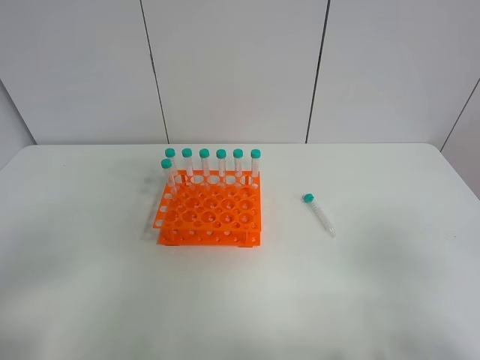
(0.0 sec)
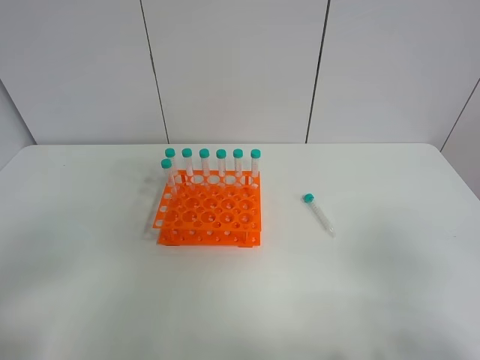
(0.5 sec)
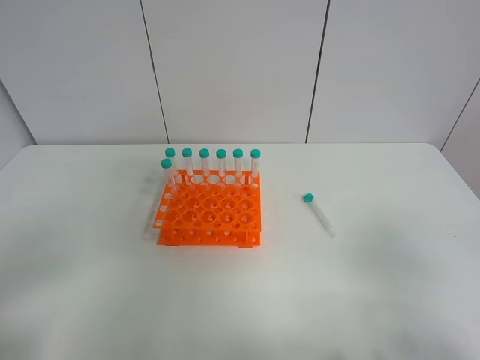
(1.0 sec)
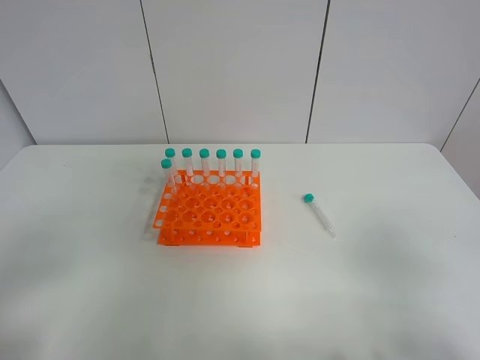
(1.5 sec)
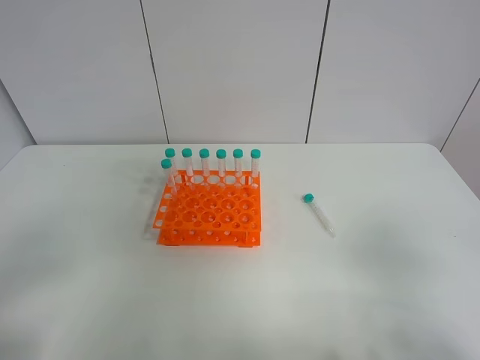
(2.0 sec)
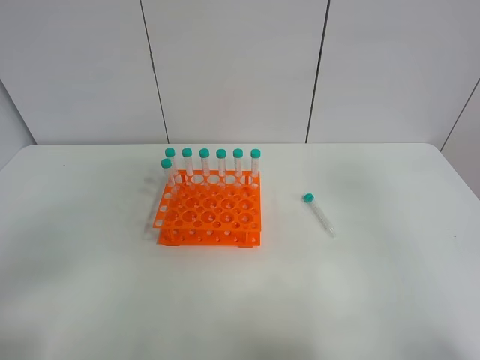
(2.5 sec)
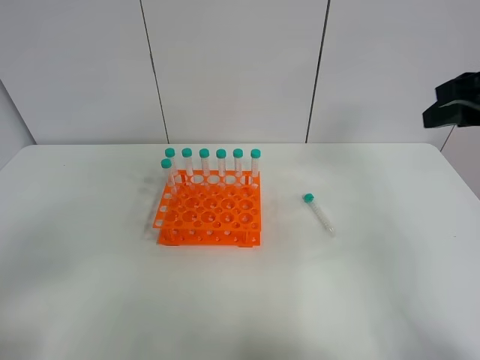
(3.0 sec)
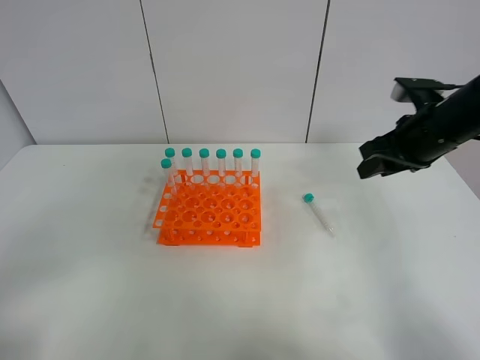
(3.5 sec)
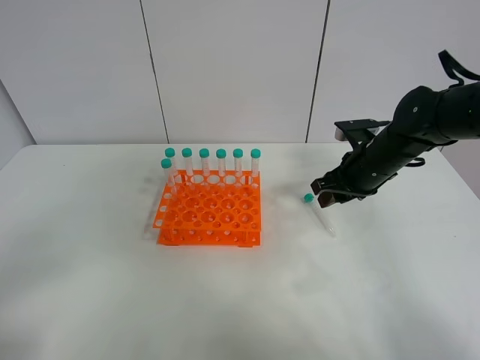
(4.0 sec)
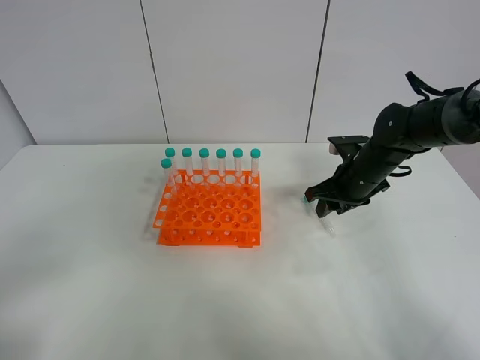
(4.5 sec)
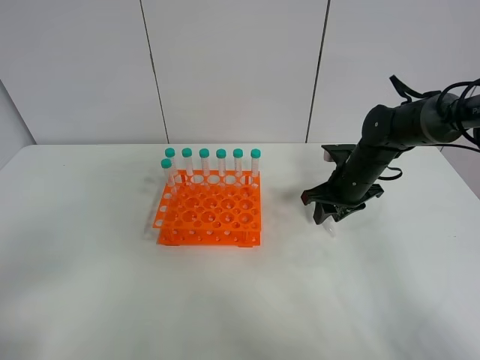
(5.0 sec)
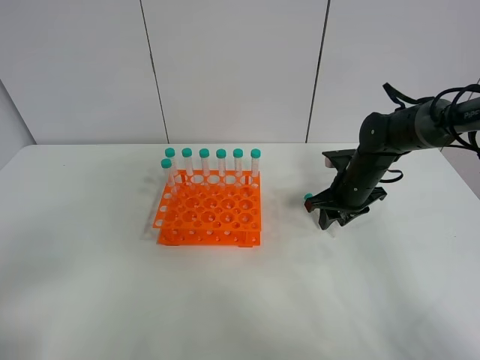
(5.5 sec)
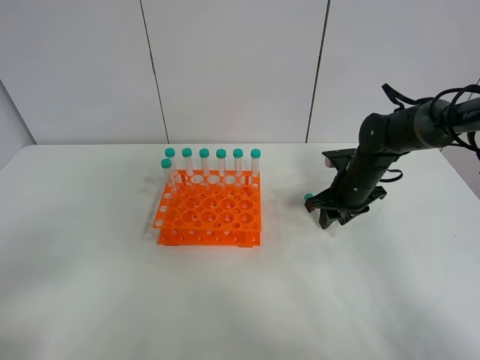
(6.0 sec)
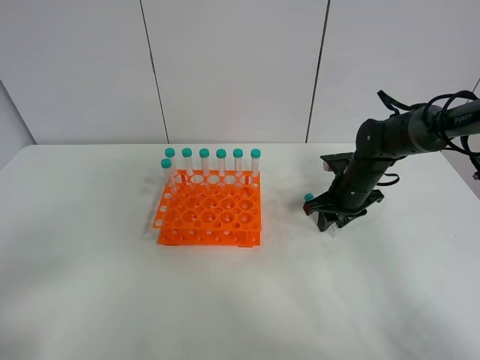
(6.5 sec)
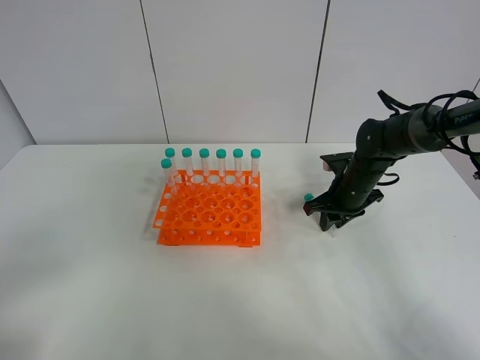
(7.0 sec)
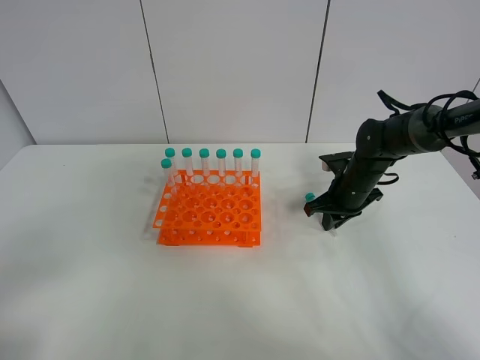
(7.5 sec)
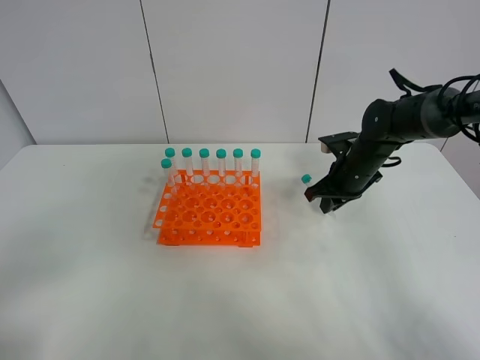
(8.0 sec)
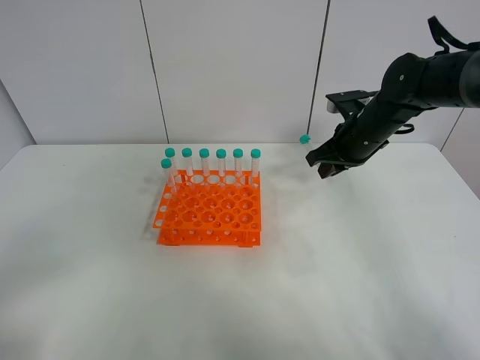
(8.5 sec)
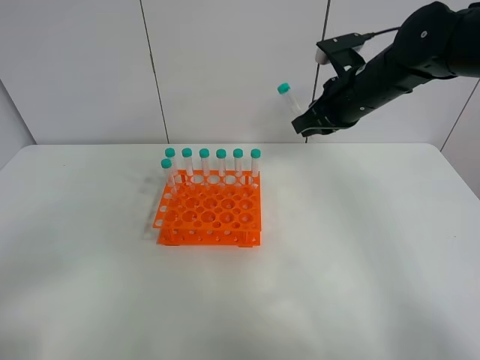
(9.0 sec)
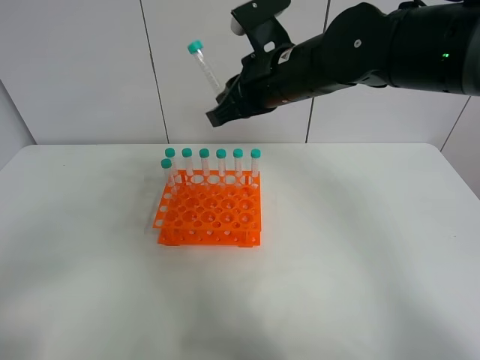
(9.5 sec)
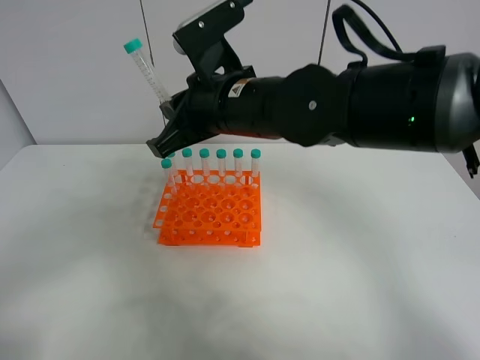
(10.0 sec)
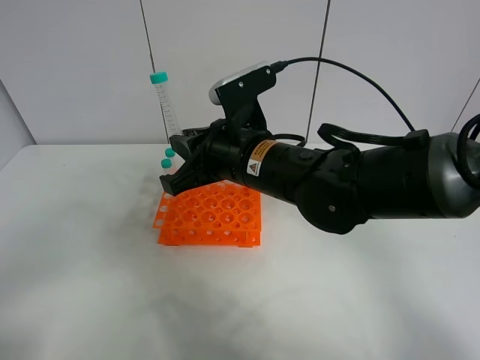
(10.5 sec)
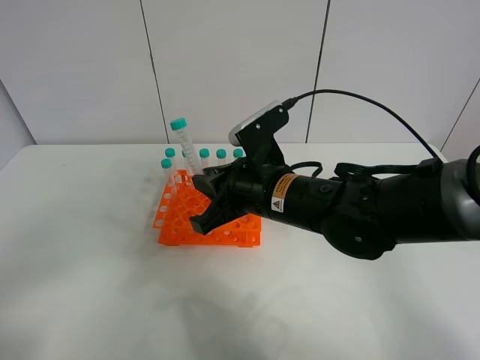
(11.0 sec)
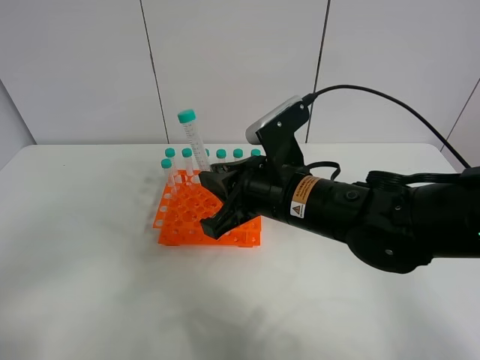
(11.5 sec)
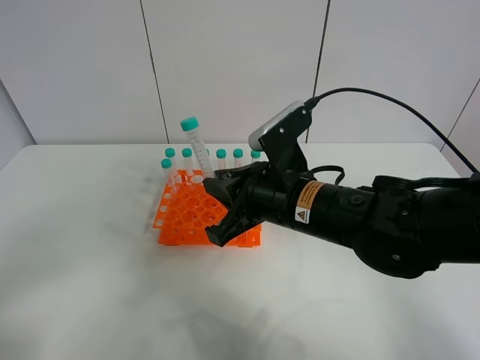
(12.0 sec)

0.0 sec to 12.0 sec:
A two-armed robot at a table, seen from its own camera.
Task of the whole recording: Put the test tube on the table back onto the test tube rack.
Step, 0.0 sec to 8.5 sec: Pick up the test tube with the right gripper.
0.0 sec to 2.0 sec: Both grippers stay about where they are.
2.0 sec to 4.0 sec: The right gripper moves forward, roughly 35 cm.
4.0 sec to 6.0 sec: The right gripper travels downward by some 5 cm.
6.0 sec to 8.0 sec: The right gripper closes.
8.0 sec to 10.0 sec: The right gripper is displaced to the left, upward and backward by about 25 cm.
10.0 sec to 12.0 sec: The right gripper travels downward, to the right and backward by some 10 cm.

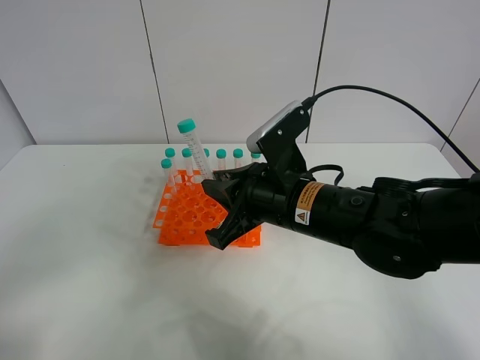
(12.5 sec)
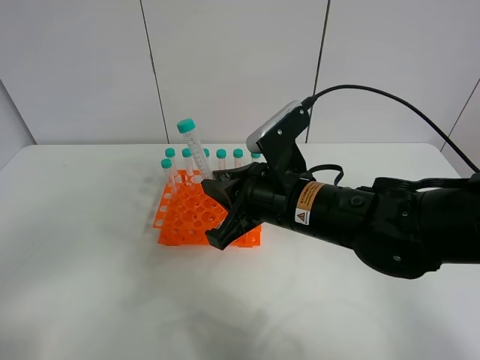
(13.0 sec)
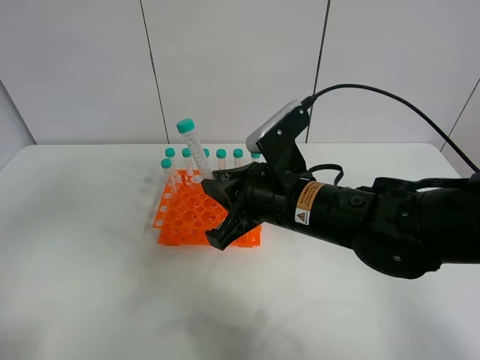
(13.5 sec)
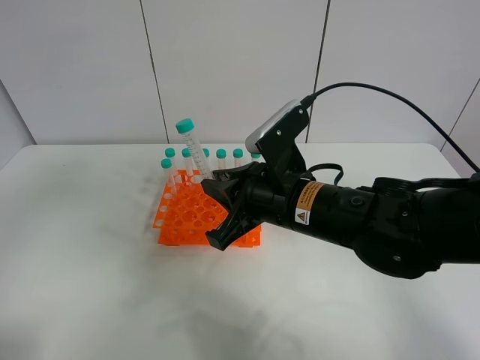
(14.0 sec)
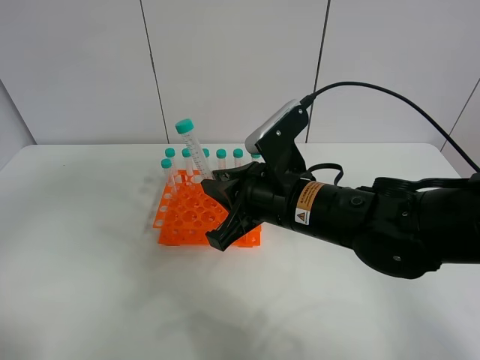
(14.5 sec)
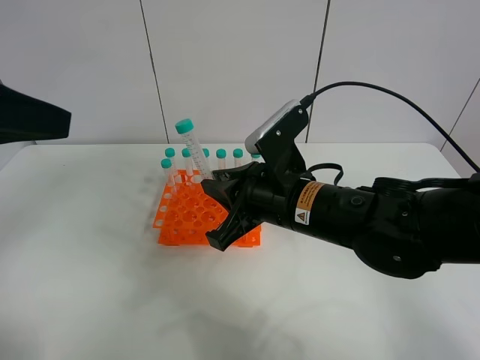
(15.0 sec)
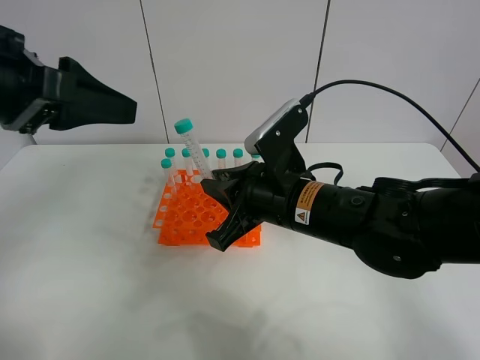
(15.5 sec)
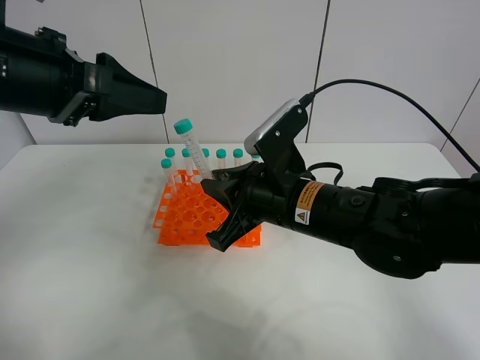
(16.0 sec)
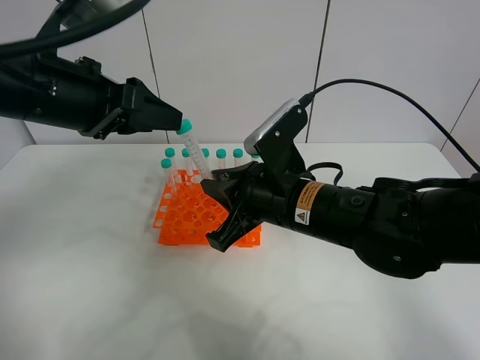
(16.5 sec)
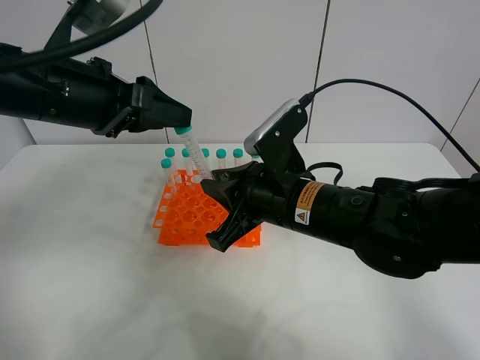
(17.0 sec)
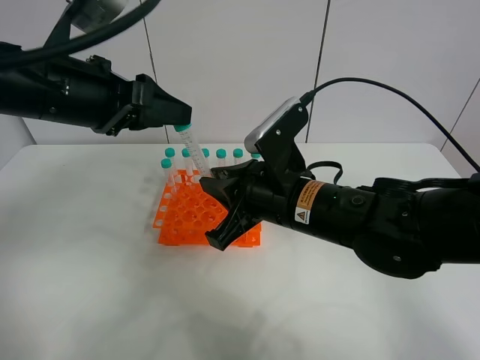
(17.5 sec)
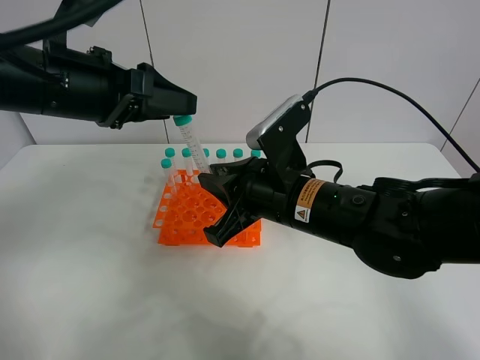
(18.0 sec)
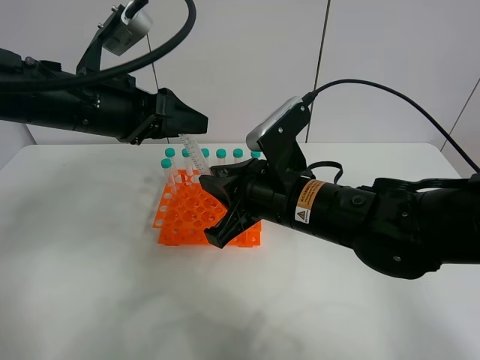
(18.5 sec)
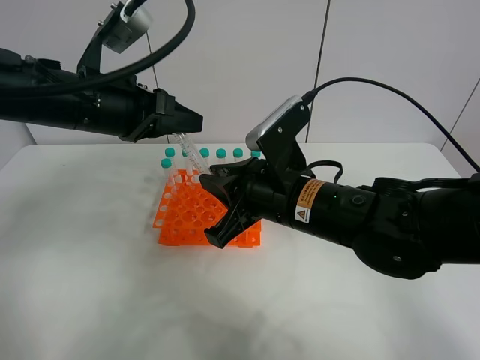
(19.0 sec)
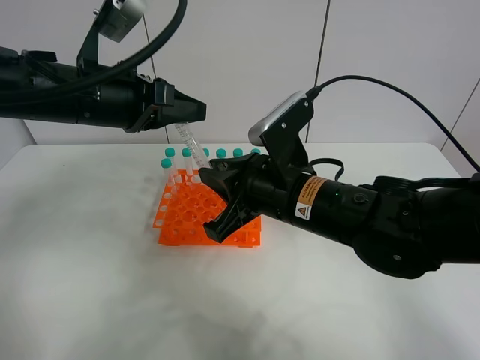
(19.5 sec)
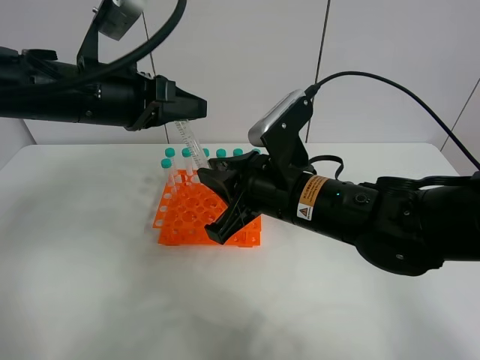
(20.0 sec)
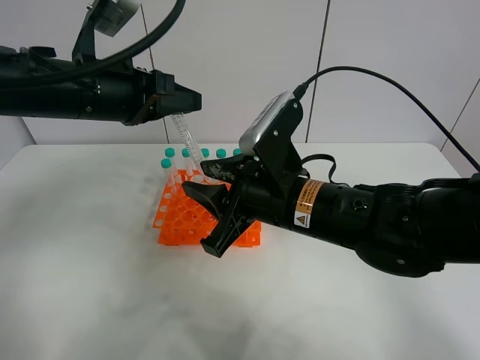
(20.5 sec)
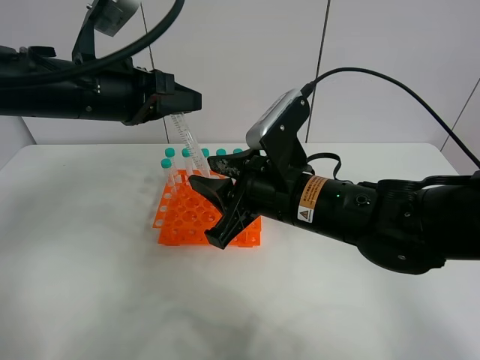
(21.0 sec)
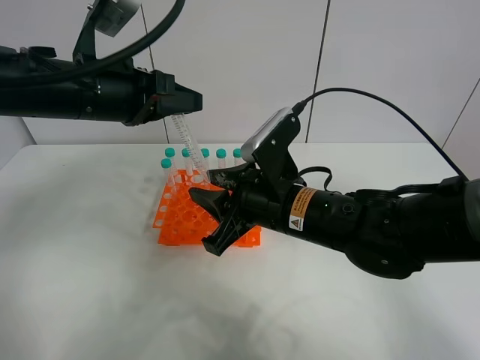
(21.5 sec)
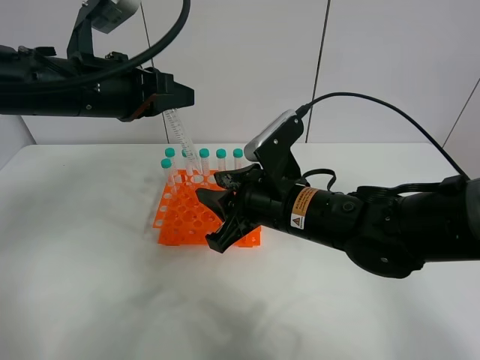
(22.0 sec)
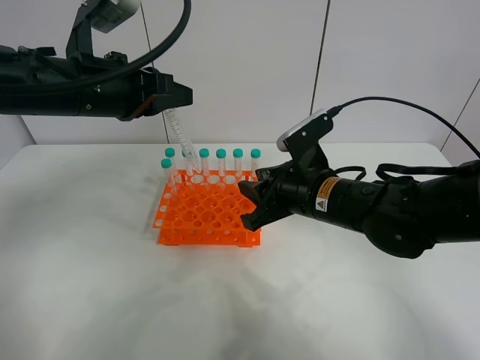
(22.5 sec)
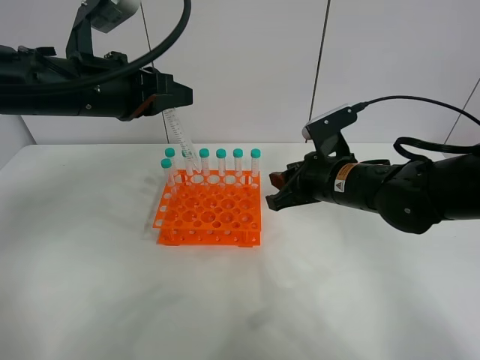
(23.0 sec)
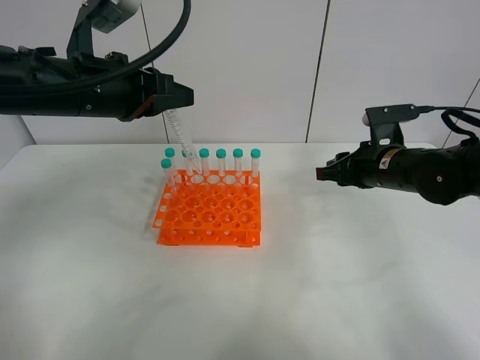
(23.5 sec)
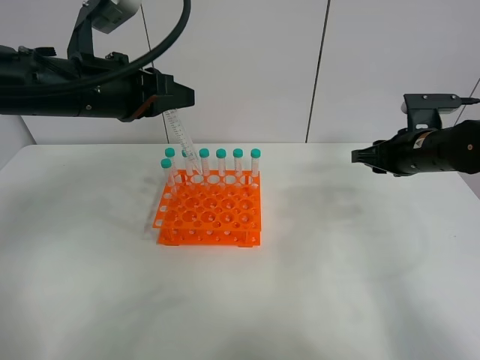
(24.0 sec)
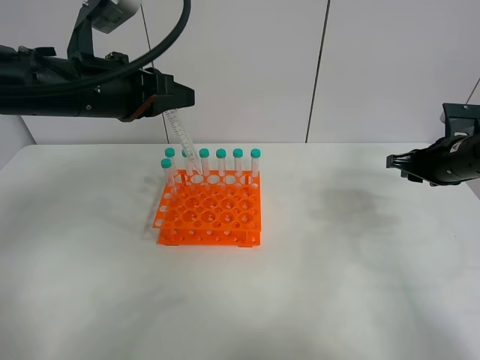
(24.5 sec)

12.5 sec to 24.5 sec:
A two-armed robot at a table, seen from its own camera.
Task of the whole recording: Put the test tube on the table back onto the test tube rack.
Step, 12.5 sec to 22.5 sec: Move the test tube from the right gripper to the left gripper.
12.5 sec to 14.5 sec: The left gripper goes approximately 15 cm upward and forward.
14.5 sec to 16.5 sec: The left gripper heads forward, downward and to the right, covering some 20 cm.
16.5 sec to 18.5 sec: The grippers move only a little.
18.5 sec to 20.5 sec: The right gripper opens up. Meanwhile the left gripper closes its fingers.
20.5 sec to 22.5 sec: The right gripper ends up approximately 5 cm from where it was.
22.5 sec to 24.5 sec: The right gripper moves to the right, about 20 cm.

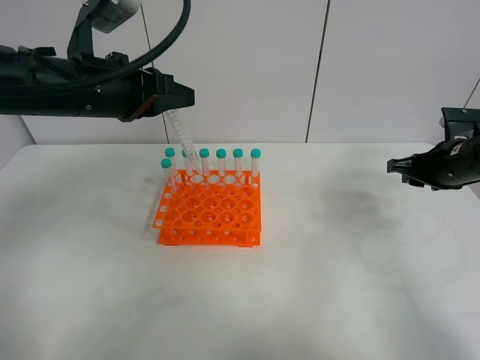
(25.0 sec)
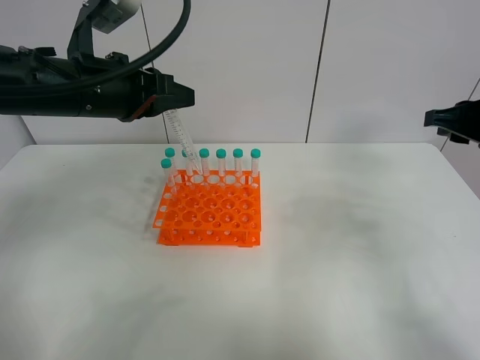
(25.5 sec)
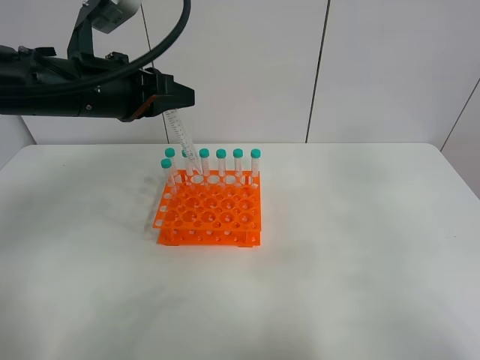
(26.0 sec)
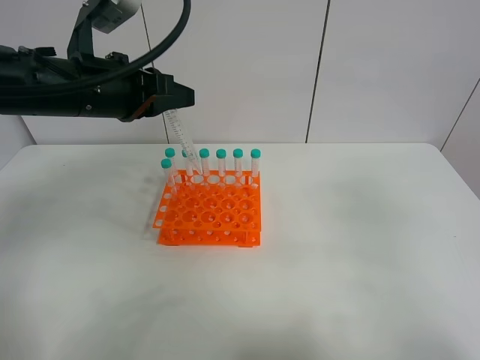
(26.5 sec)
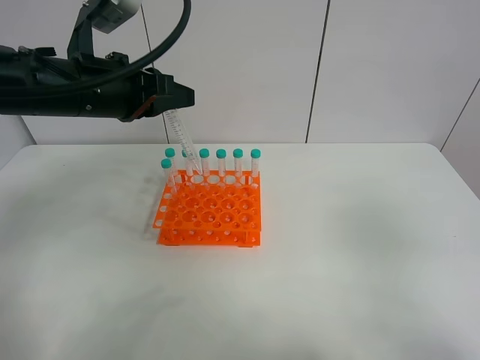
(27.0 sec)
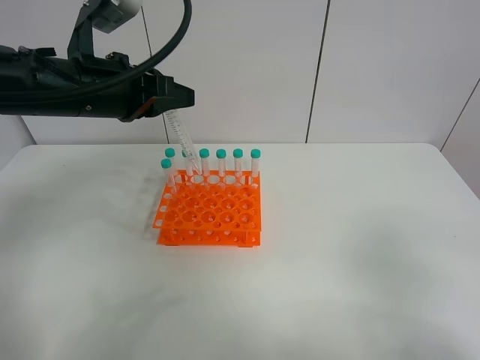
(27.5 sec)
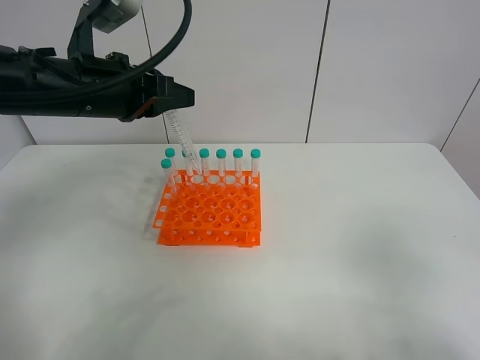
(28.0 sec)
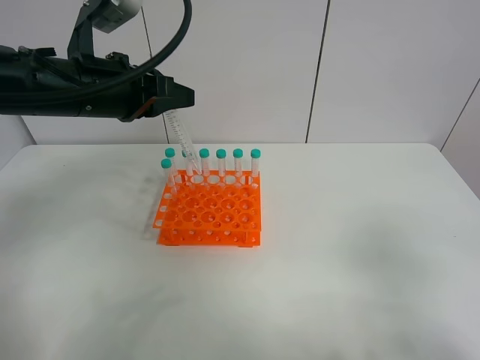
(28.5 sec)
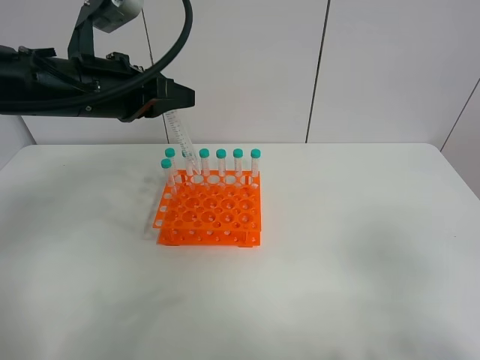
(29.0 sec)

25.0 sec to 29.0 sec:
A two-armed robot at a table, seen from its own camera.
Task of the whole recording: Put the test tube on the table back onto the test tube rack.
25.0 sec to 27.0 sec: The right gripper shifts approximately 40 cm backward and upward.
27.0 sec to 29.0 sec: The right gripper shifts about 5 cm downward.
